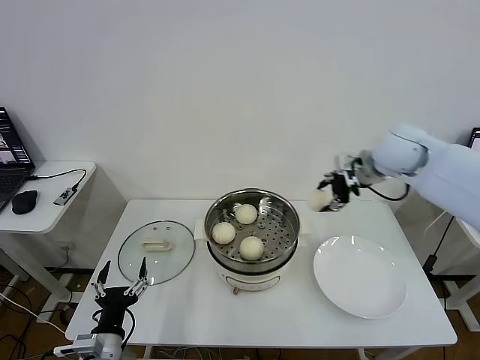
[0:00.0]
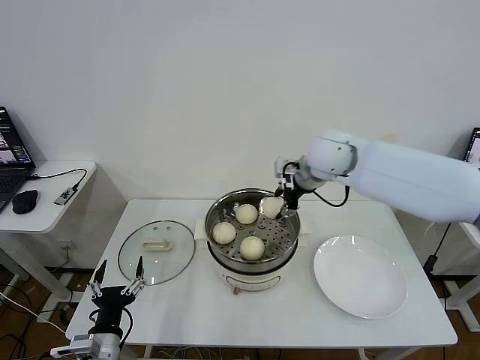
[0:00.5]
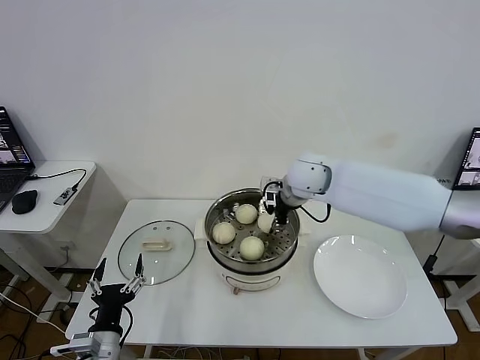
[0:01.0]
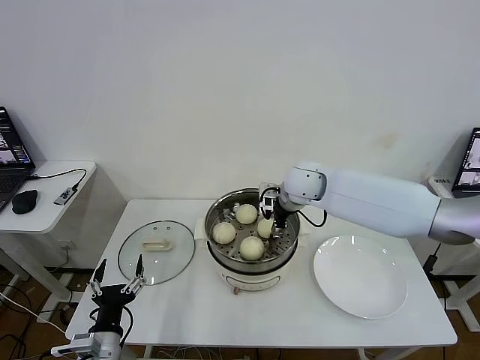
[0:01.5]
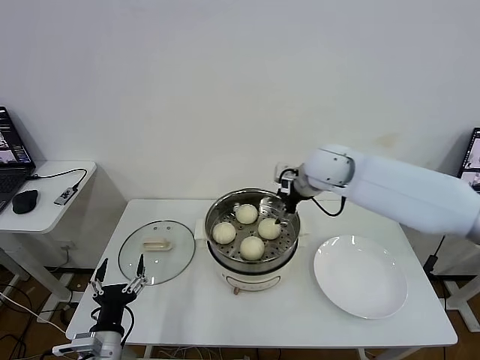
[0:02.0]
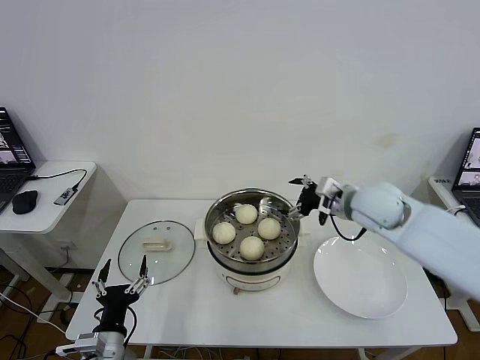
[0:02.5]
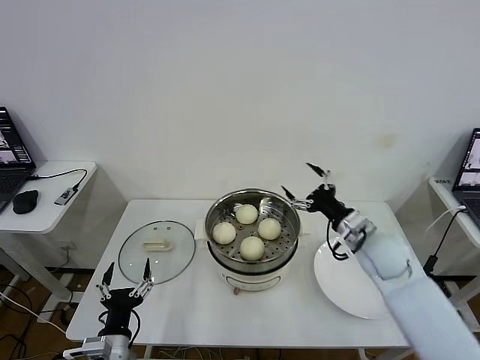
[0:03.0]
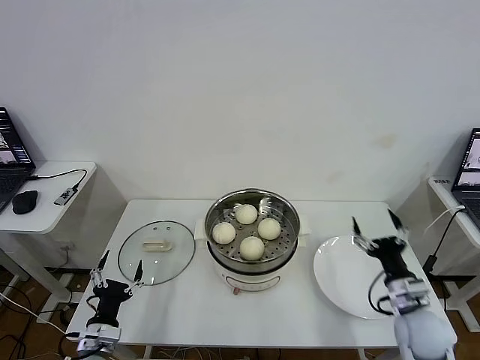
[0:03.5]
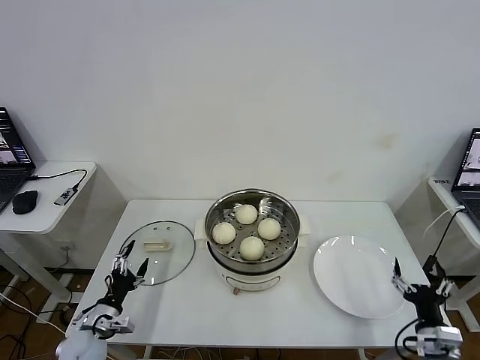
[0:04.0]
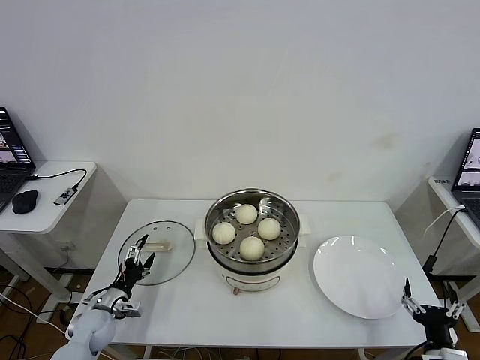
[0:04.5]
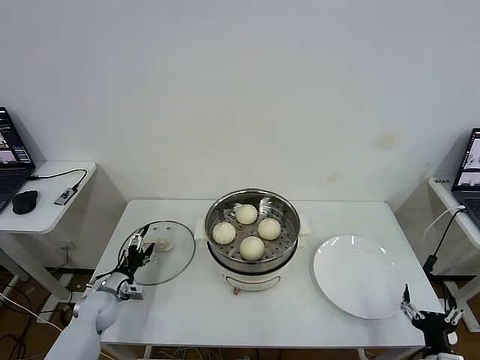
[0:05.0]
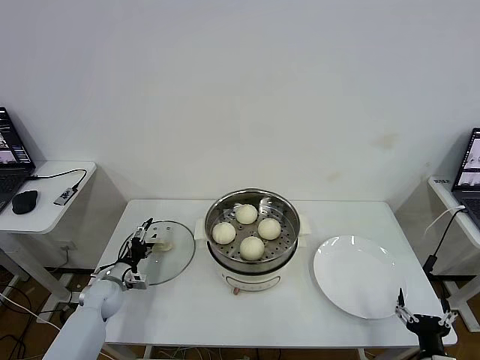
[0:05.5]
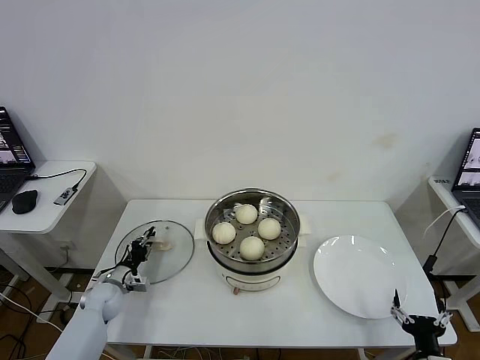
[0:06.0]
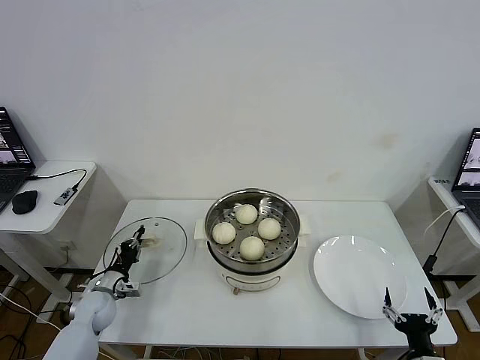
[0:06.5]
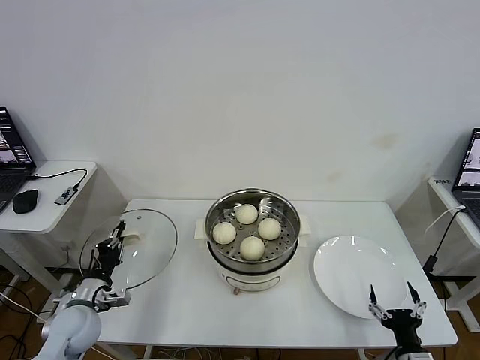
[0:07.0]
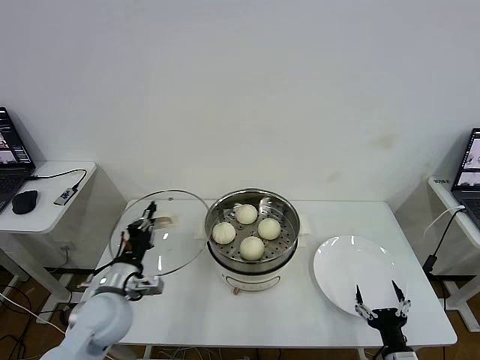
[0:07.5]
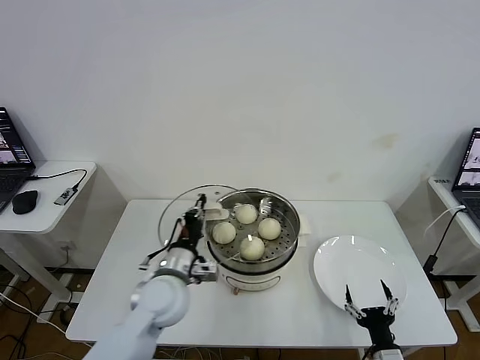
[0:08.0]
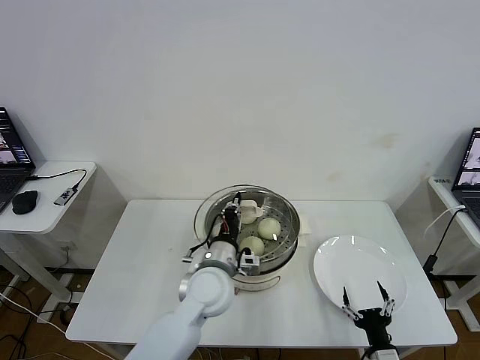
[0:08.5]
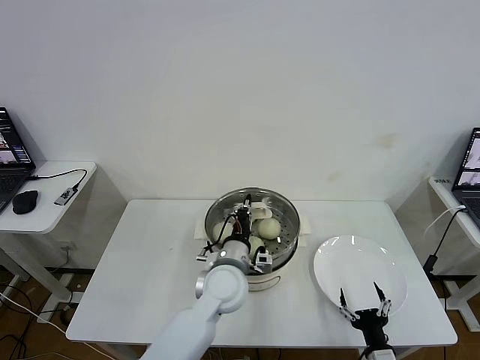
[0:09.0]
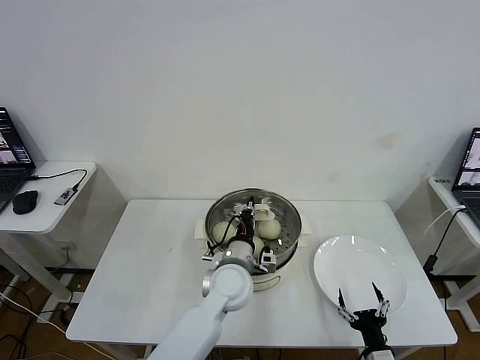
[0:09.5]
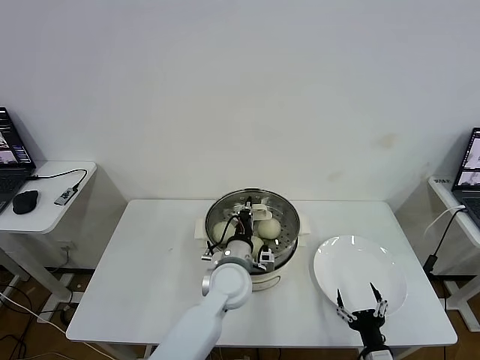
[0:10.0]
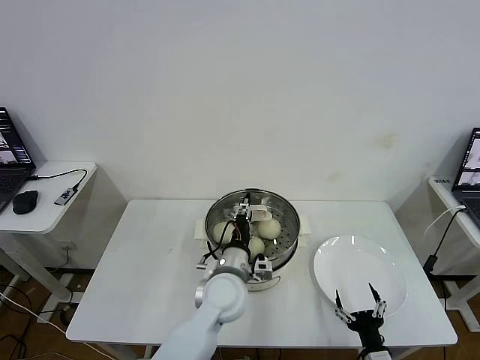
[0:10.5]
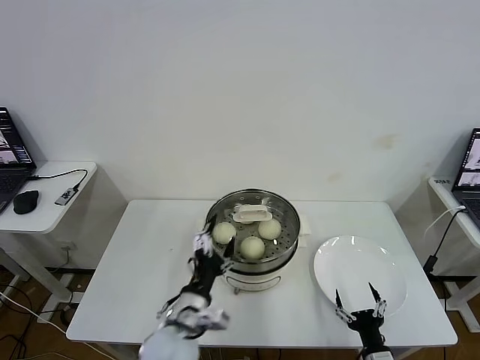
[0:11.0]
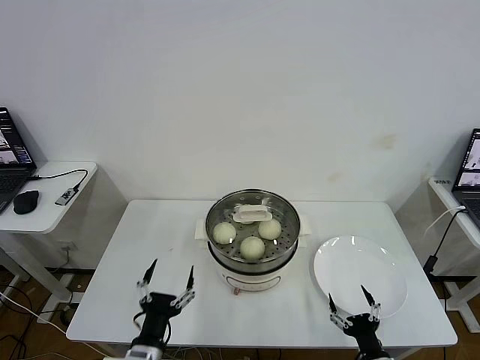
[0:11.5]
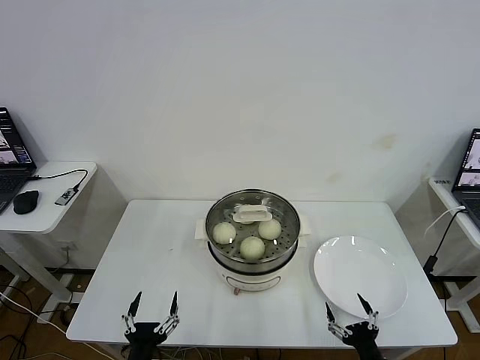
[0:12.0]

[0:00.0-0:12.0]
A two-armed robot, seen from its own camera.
Task of the whole recording: take steamed baozi put them in steamer then cover it.
Step, 0:00.0 to 0:01.5: Place the baozi on the steamer with right gripper.
Step, 0:02.0 to 0:06.0: Grasp the pot lid with left gripper.
Step, 0:06.5 to 0:10.0: Place the pot lid on the steamer with left gripper.
0:00.0 to 0:02.0: The right gripper goes approximately 10 cm to the left, and opens up.
0:02.0 to 0:04.0: The left gripper heads to the left, forward and downward, covering roughly 15 cm. The right gripper goes approximately 50 cm backward, downward and to the right.
0:04.0 to 0:06.0: The right gripper moves about 5 cm. The left gripper goes roughly 15 cm forward, and closes up.
0:06.0 to 0:08.0: The right gripper heads to the left, covering approximately 5 cm. Meanwhile the left gripper travels to the right and upward by some 30 cm, and closes up.
0:08.0 to 0:10.0: The left gripper heads to the right, covering approximately 15 cm.
0:10.0 to 0:12.0: The left gripper is displaced backward and to the left by about 30 cm, and opens up.
